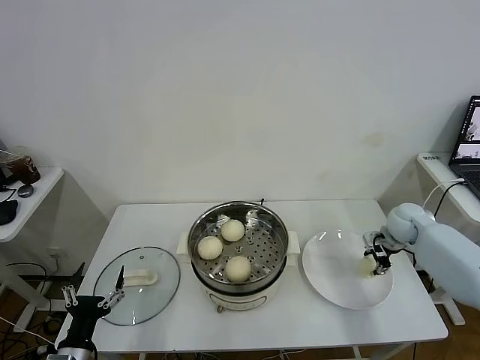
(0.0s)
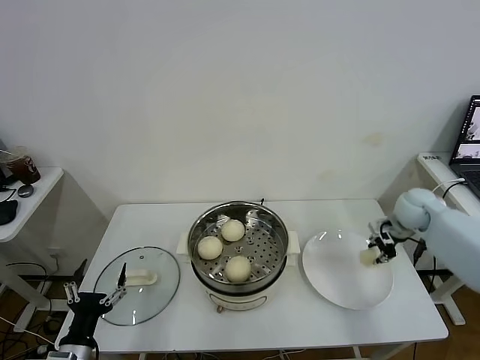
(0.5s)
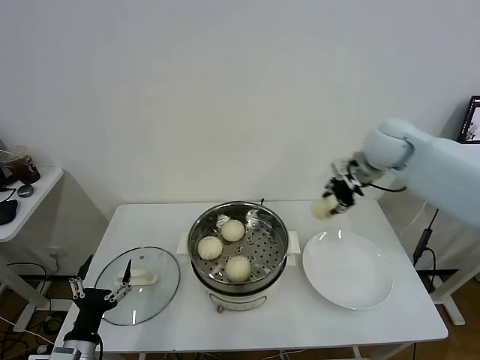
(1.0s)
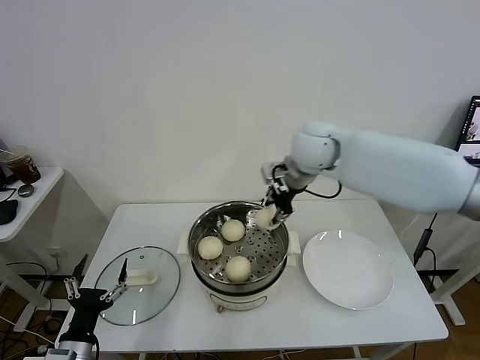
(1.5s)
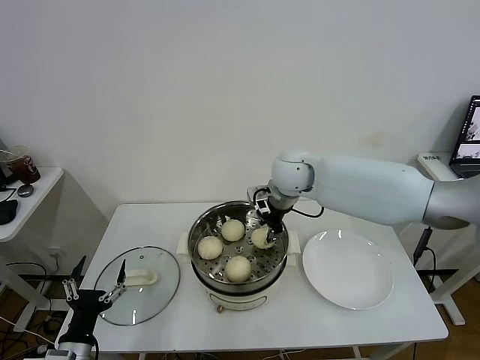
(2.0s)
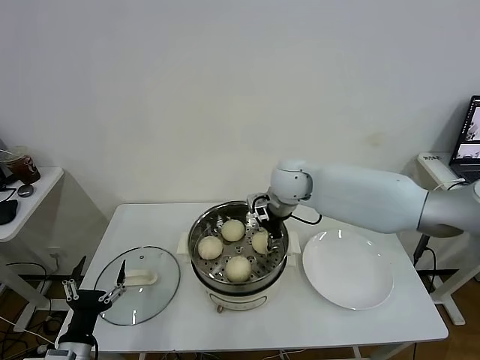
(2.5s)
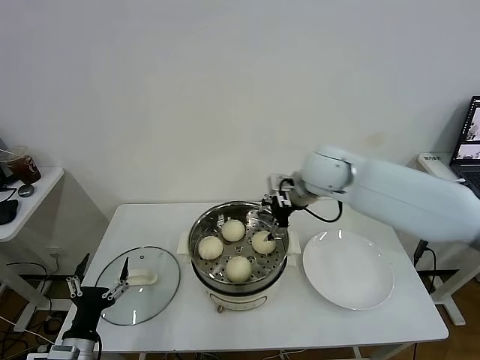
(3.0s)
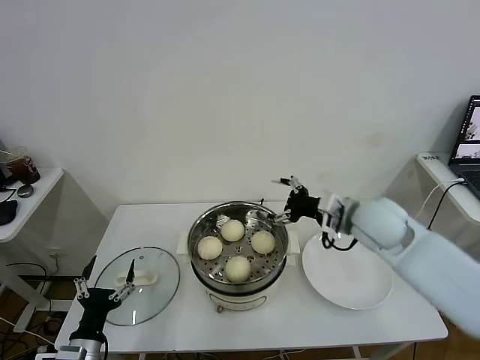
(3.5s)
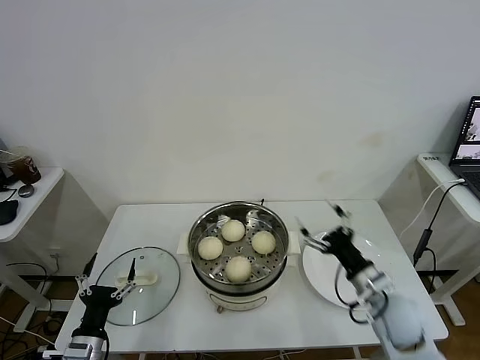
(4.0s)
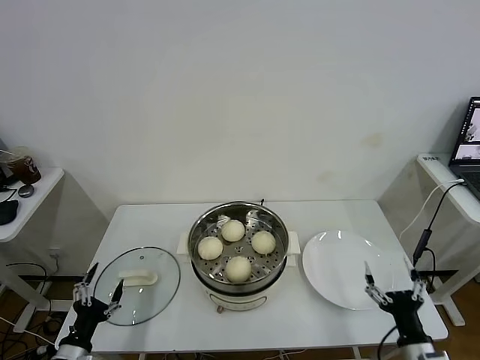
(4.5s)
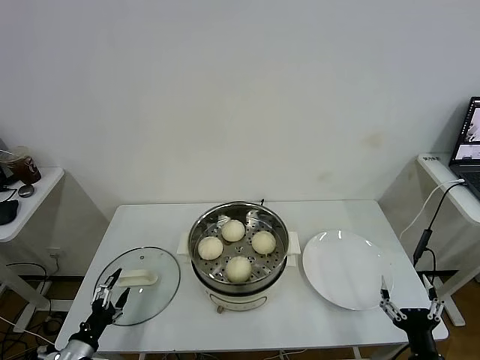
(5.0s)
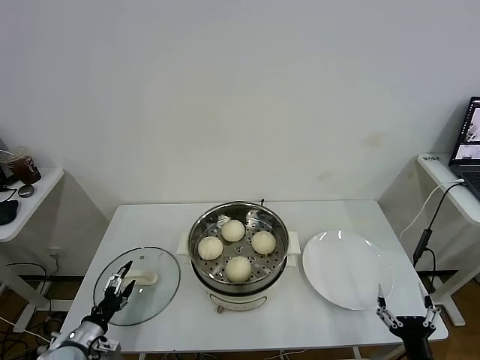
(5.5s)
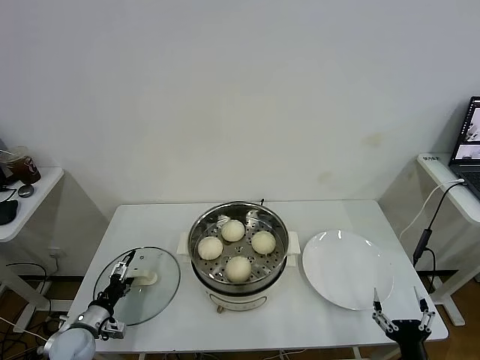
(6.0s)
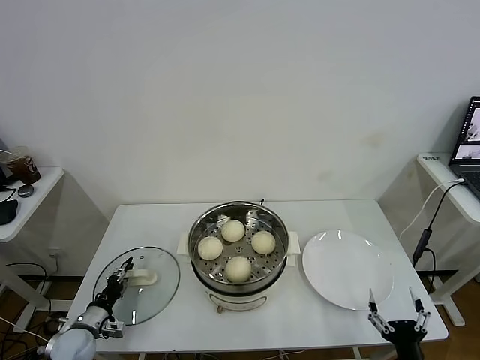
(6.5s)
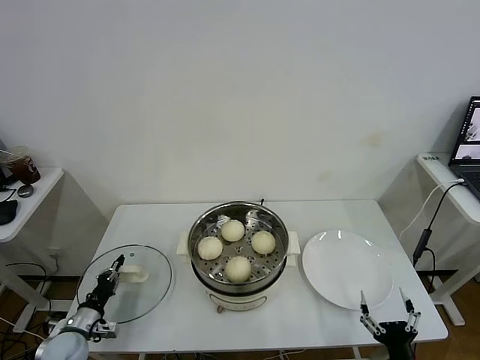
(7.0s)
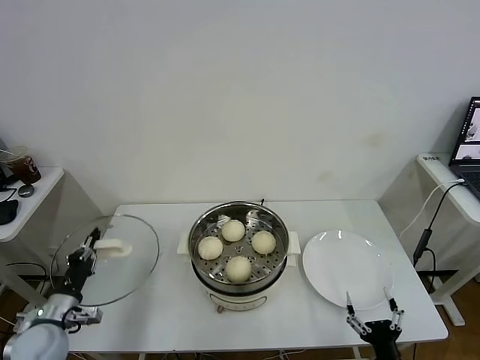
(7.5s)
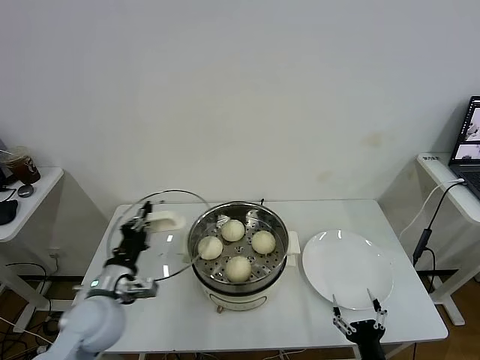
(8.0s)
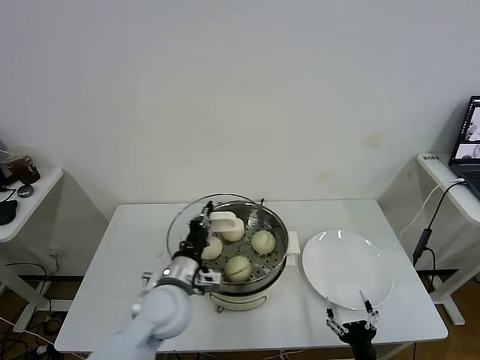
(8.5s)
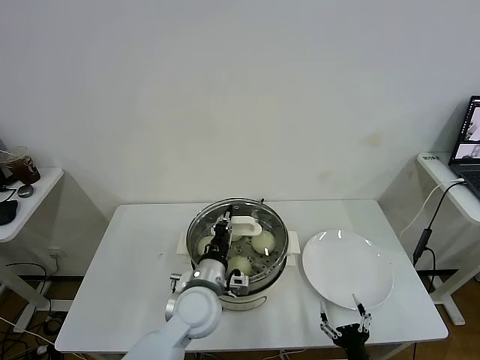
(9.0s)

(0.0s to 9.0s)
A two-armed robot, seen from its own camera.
Task of the whole recording: take steamed baozi put them in steamer.
Step, 0.5s - 2.5s: Place the baozi on the steamer with right gripper.
Step, 3.0s - 6.5s: Grasp the pot lid with left gripper.
0.0s - 2.0s: The right gripper shifts about 35 cm to the left and upward.
2.0s - 4.5s: The right gripper moves backward, to the right and downward, some 50 cm, and opens its fingers. Meanwhile the left gripper changes place by roughly 5 cm.
4.5s - 7.0s: The right gripper is displaced backward by approximately 5 cm; the left gripper is displaced forward and downward by approximately 10 cm, and closes its fingers.
7.0s - 9.0s: The right gripper is displaced to the left by roughly 5 cm. Meanwhile the left gripper goes roughly 35 cm to the right and upward.

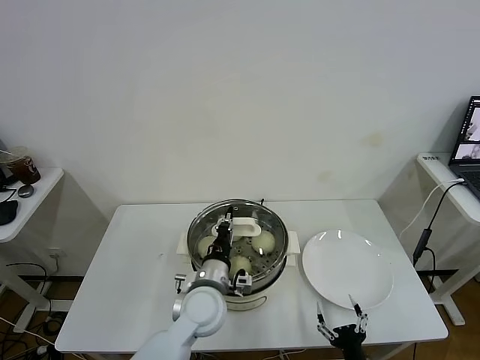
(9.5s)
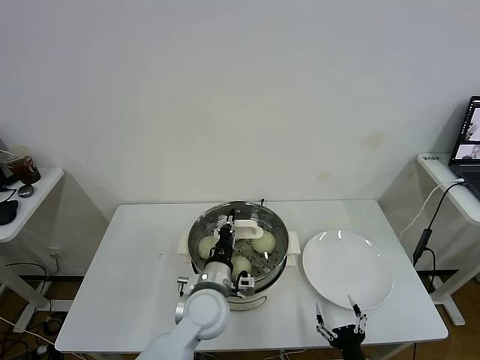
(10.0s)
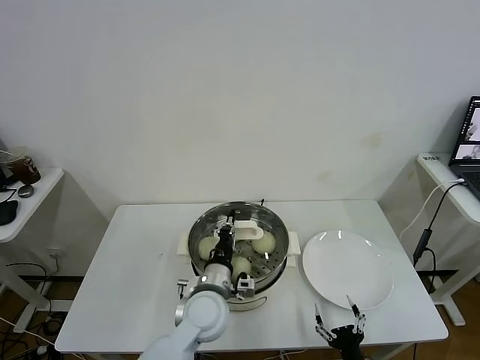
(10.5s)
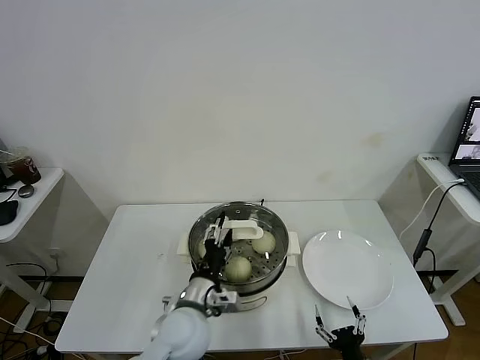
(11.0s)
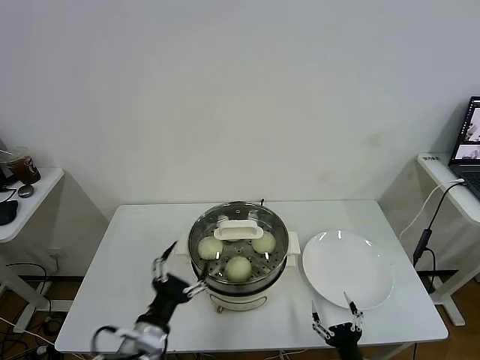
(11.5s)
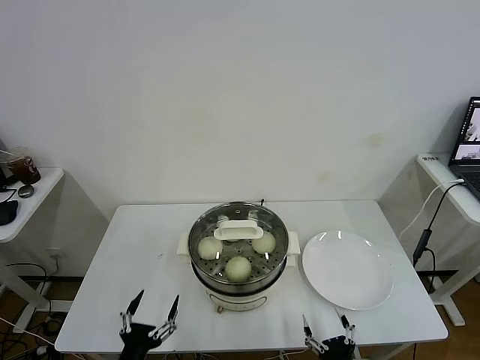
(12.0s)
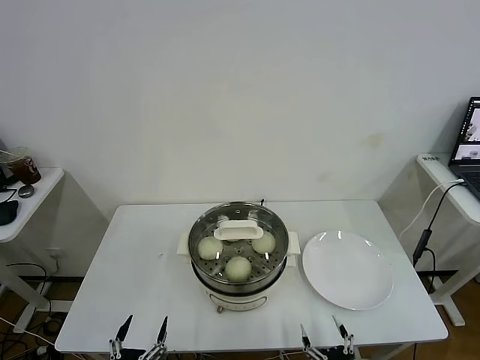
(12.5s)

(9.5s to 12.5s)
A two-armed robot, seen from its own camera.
Task of the whole recording: take steamed baozi put them in steamer.
9.5s - 11.0s: The left gripper opens its fingers.
11.0s - 12.5s: The left gripper is displaced backward, to the left and downward by roughly 30 cm, and opens up.

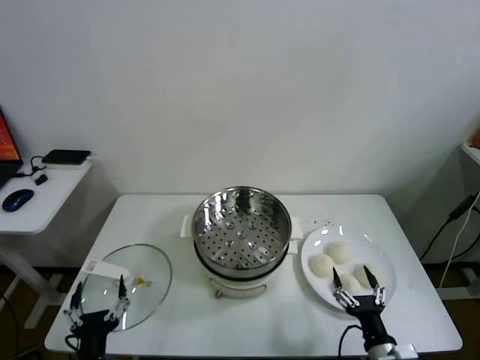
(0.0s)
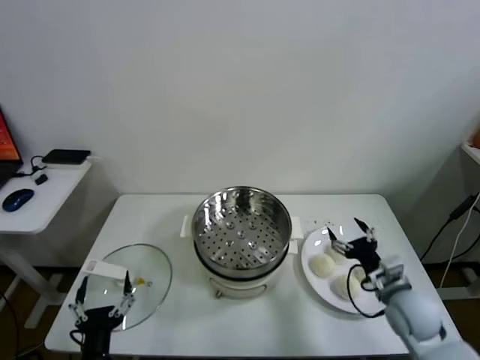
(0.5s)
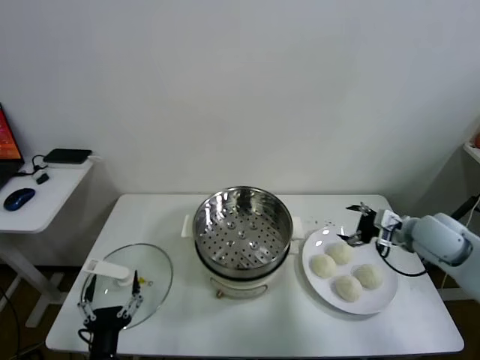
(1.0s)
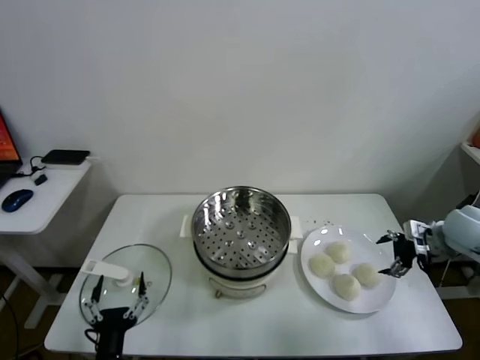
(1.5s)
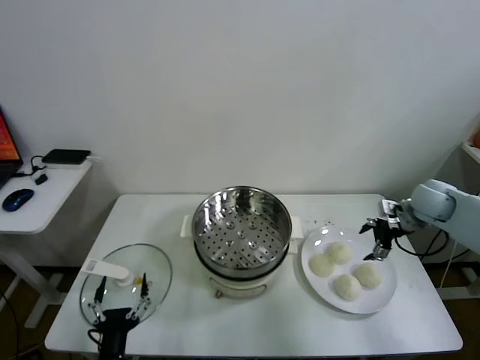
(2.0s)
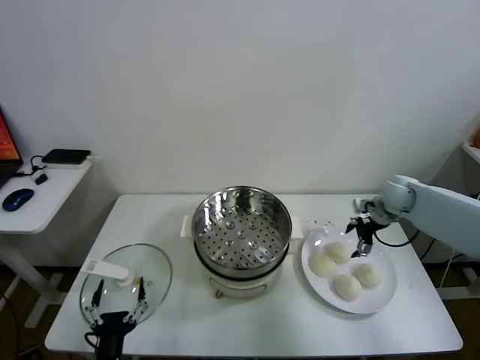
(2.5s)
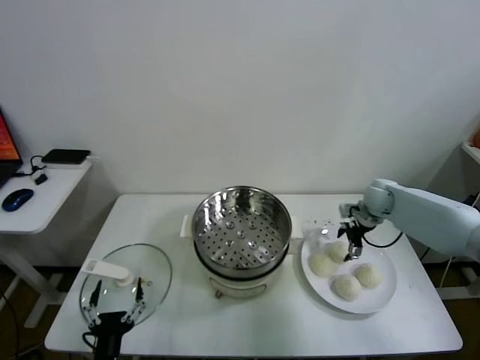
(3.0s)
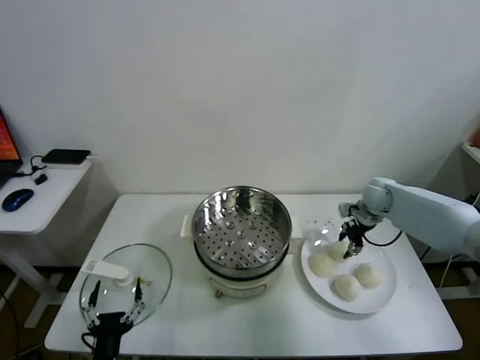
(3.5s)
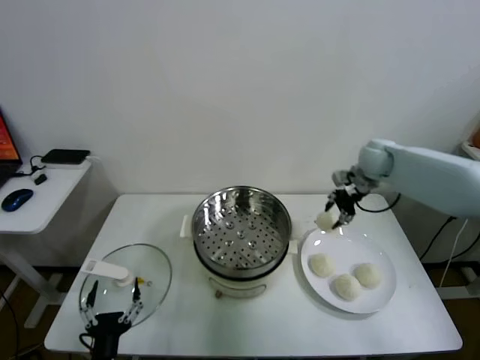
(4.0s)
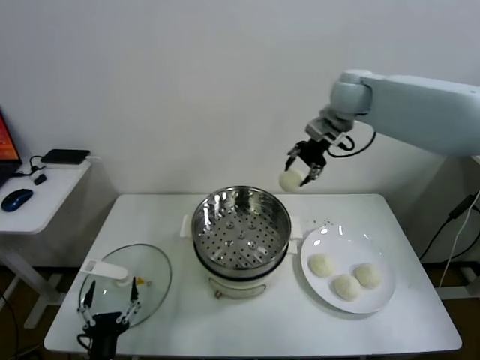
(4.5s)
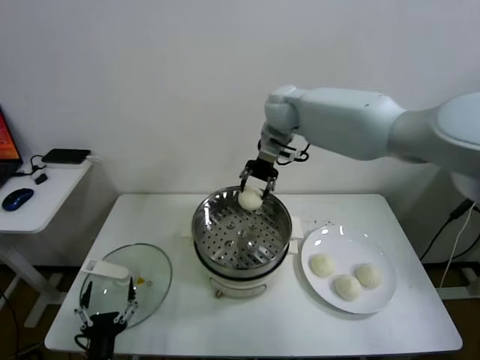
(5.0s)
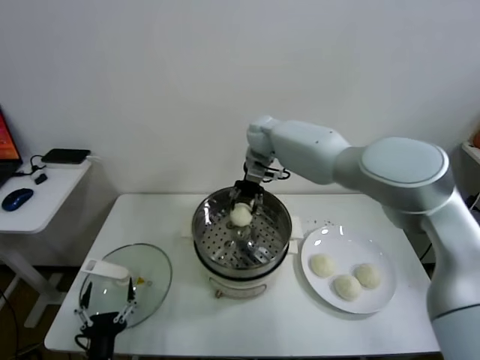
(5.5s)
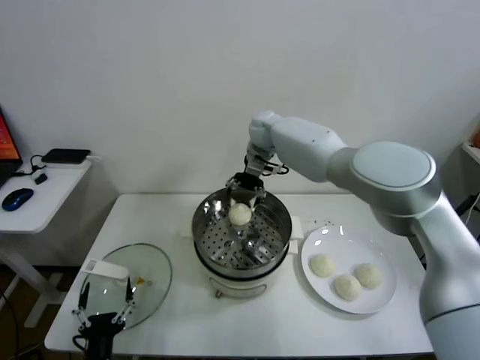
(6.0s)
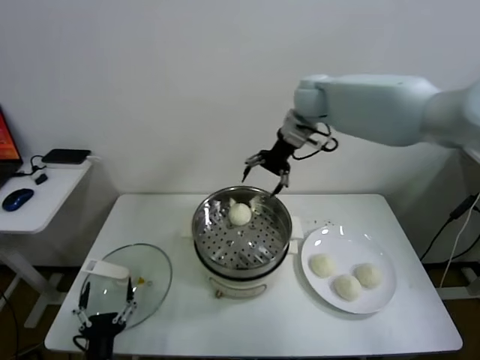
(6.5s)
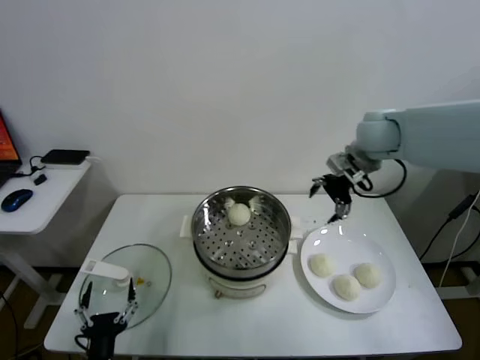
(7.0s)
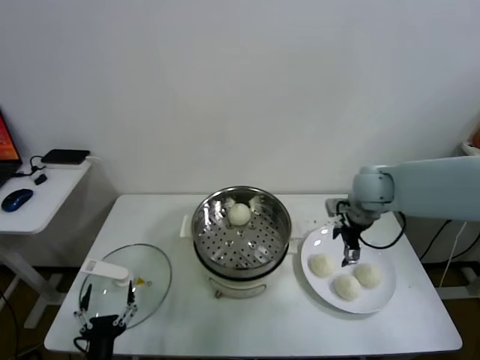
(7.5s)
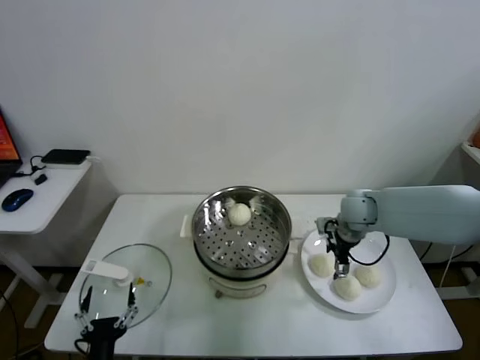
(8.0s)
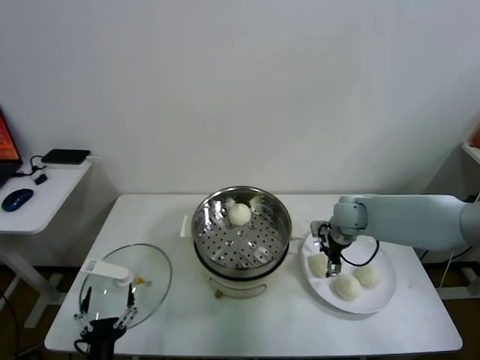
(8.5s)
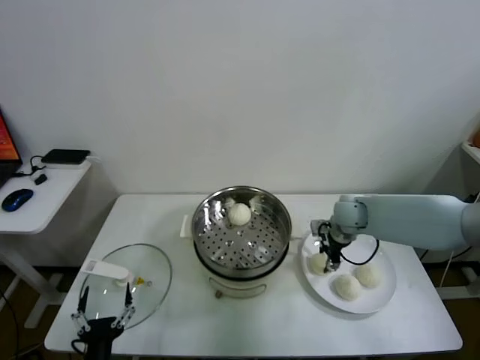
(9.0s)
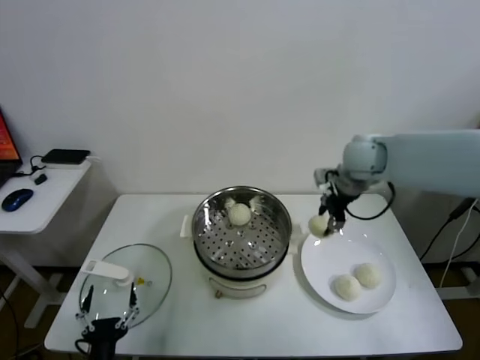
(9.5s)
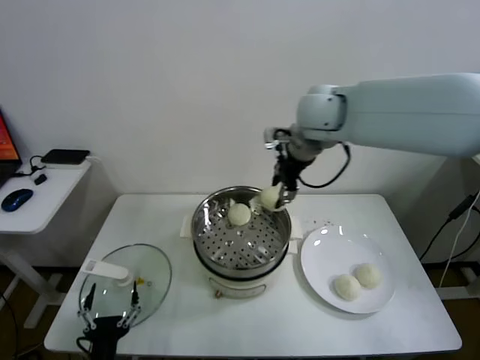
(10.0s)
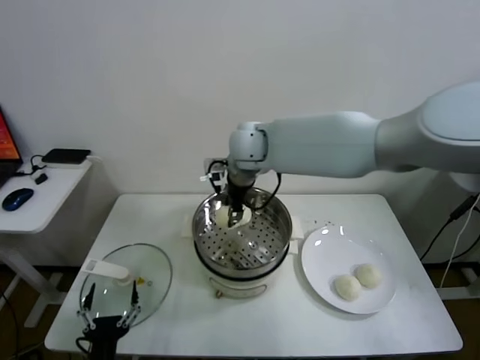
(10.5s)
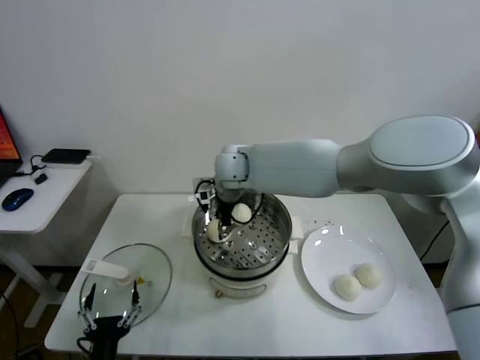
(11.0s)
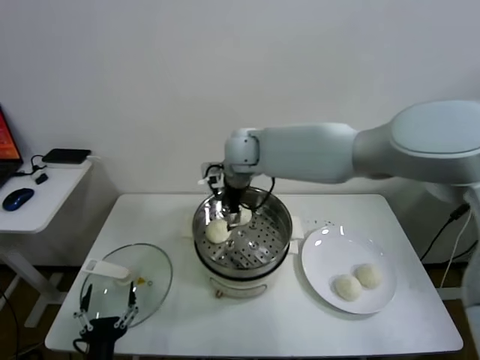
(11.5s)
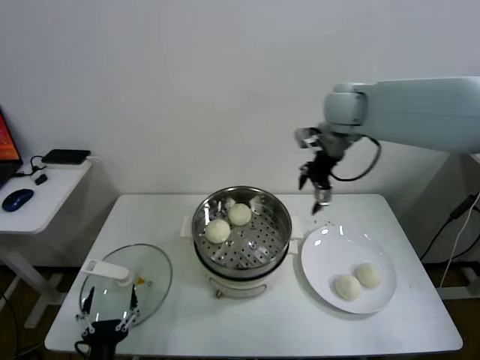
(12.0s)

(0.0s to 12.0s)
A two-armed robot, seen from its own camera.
Task of the whole recording: take steamed baozi put them in steamer.
Step, 0.0s - 3.5s: Grasp the baozi in the plate with right gripper.
Step, 4.0s - 5.5s: Place the baozi on the steamer with right gripper.
Step, 6.0s - 8.5s: Grasp the baozi in the plate with right gripper.
Step, 9.5s - 11.0s: Place the baozi on the steamer with right gripper.
2.0s - 4.0s: The right gripper shifts about 20 cm to the left, upward and forward, and closes.
4.0s - 6.0s: The right gripper moves to the left, roughly 25 cm, and opens its fingers.
6.0s - 8.0s: The right gripper heads to the right, backward and downward, covering some 30 cm.
8.0s - 10.0s: The right gripper is displaced upward and to the left by roughly 30 cm, and closes.
10.0s - 12.0s: The right gripper goes about 10 cm to the right, and opens.

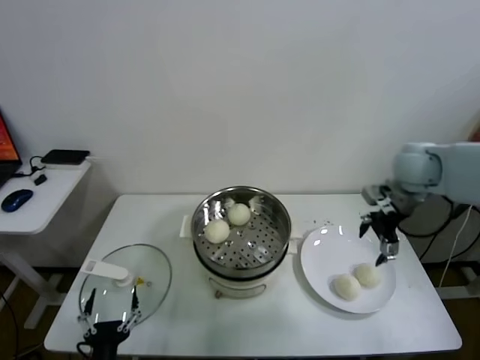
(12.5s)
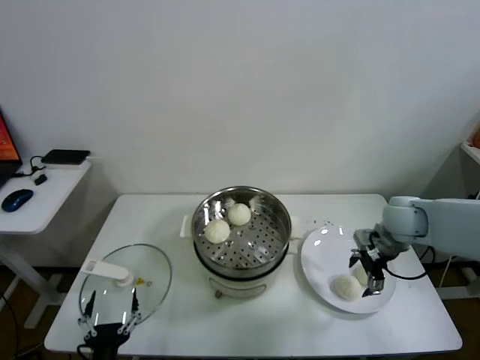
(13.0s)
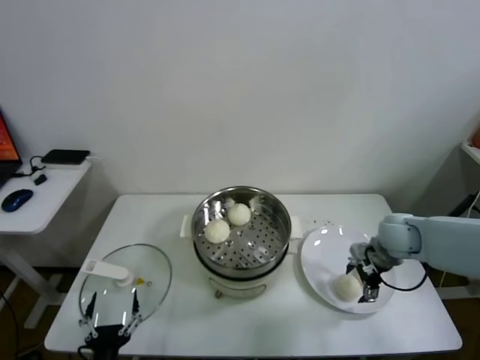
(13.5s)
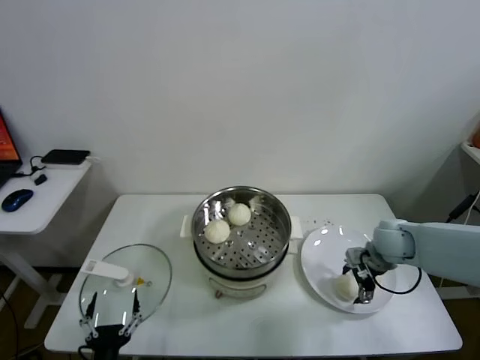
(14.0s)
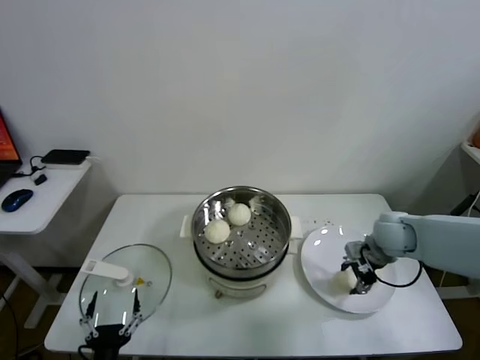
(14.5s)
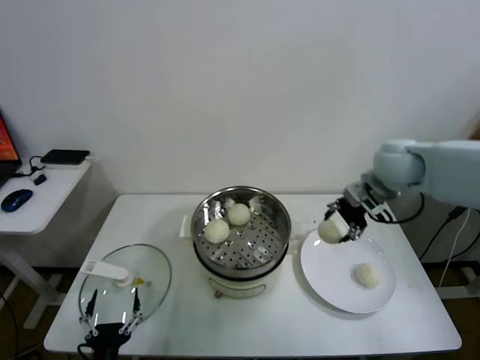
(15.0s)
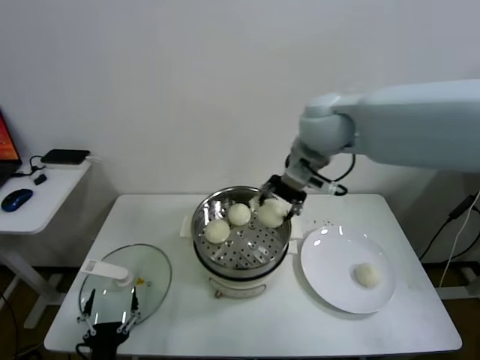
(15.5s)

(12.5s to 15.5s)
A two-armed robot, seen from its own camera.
Task of the whole recording: take steamed baozi put them in steamer.
Step, 12.5s - 14.0s: Grasp the baozi in the plate with right gripper.
12.5s - 14.0s: The right gripper goes roughly 15 cm downward.
14.0s - 15.5s: The right gripper travels upward and to the left by about 35 cm, and closes its fingers.
